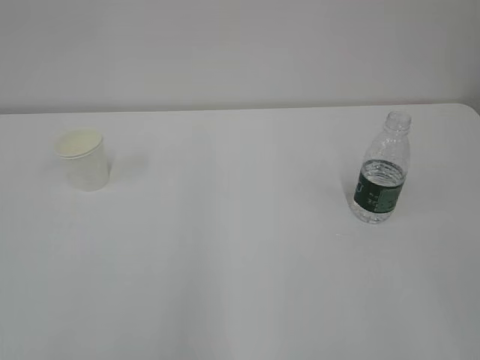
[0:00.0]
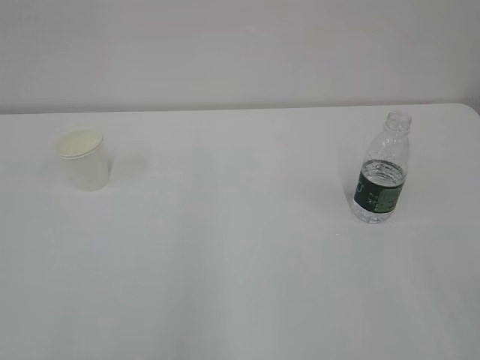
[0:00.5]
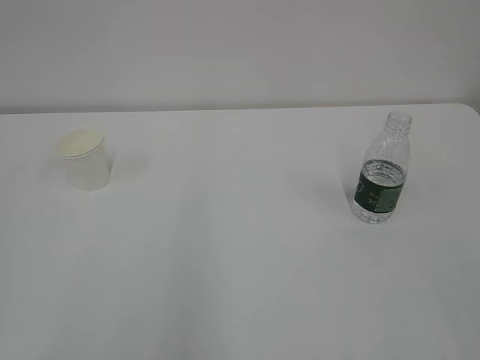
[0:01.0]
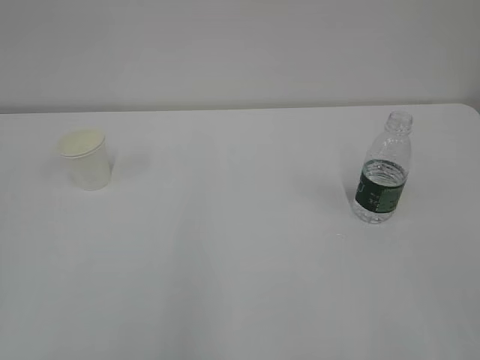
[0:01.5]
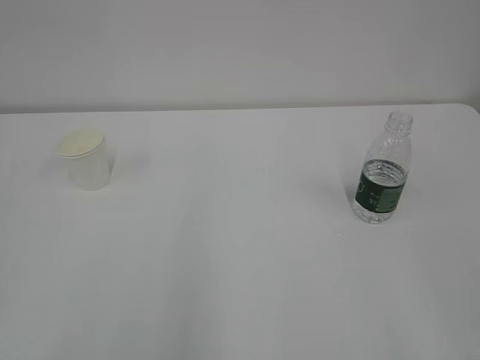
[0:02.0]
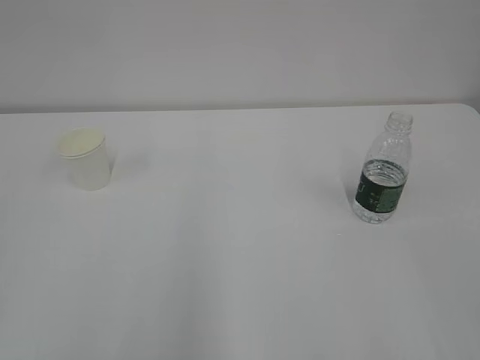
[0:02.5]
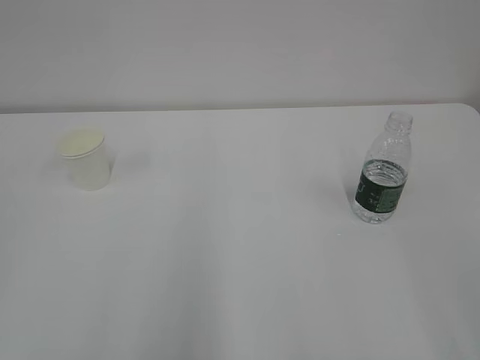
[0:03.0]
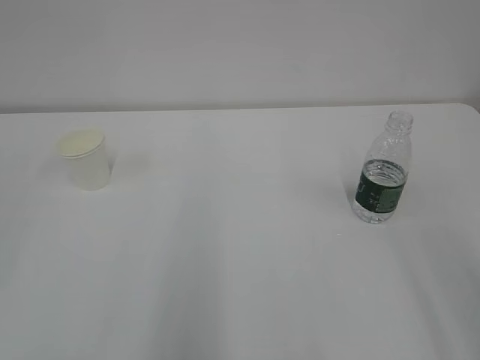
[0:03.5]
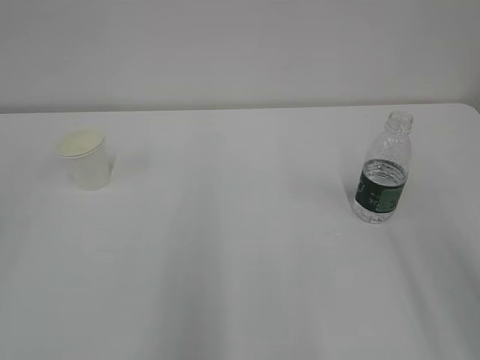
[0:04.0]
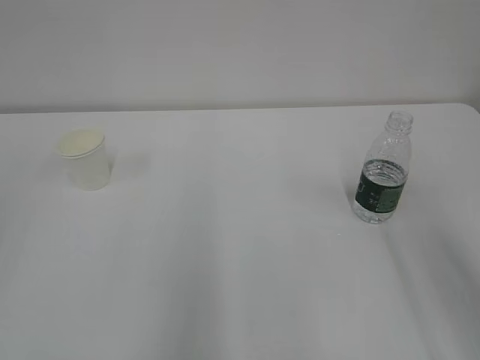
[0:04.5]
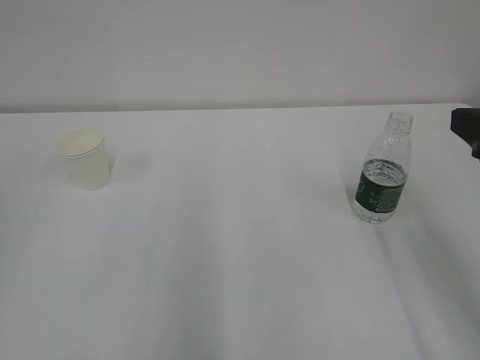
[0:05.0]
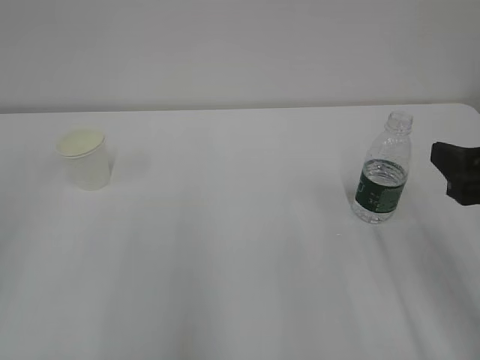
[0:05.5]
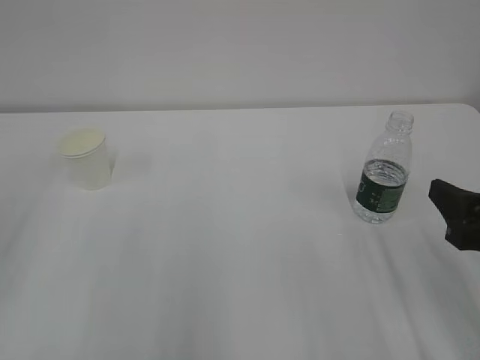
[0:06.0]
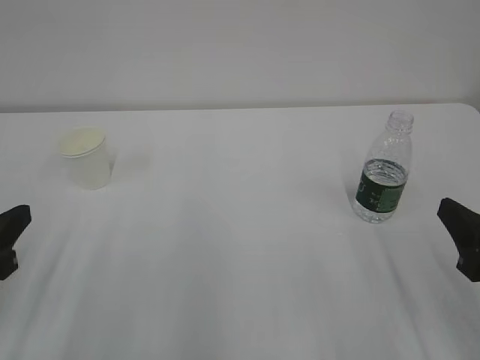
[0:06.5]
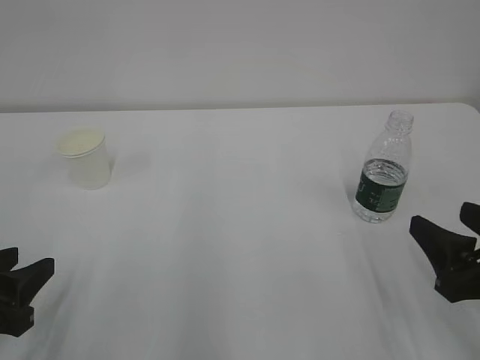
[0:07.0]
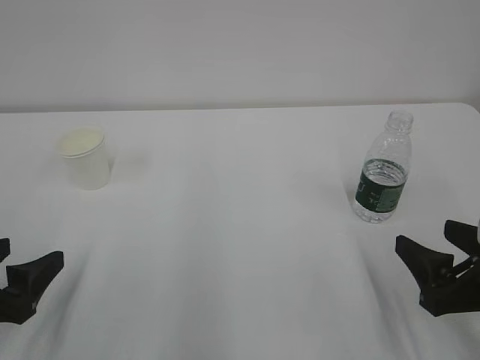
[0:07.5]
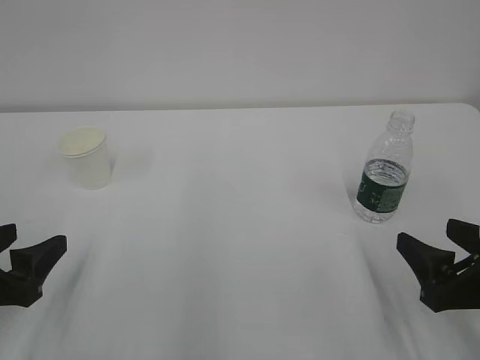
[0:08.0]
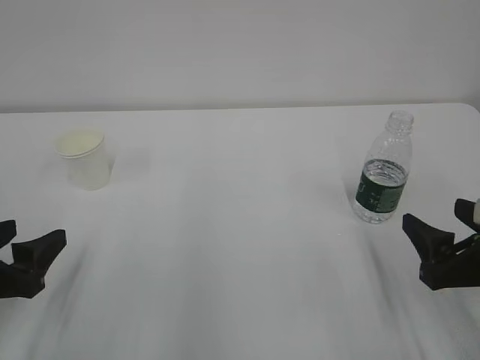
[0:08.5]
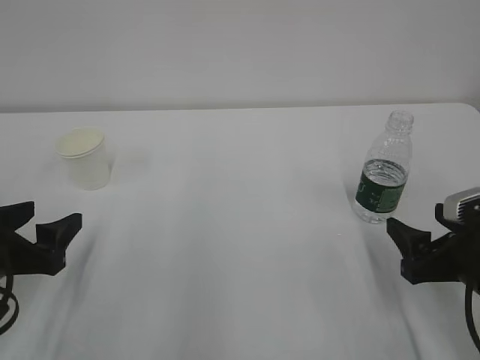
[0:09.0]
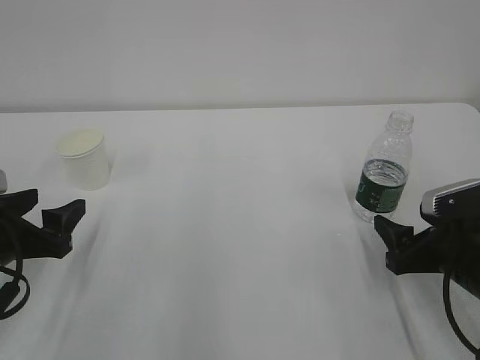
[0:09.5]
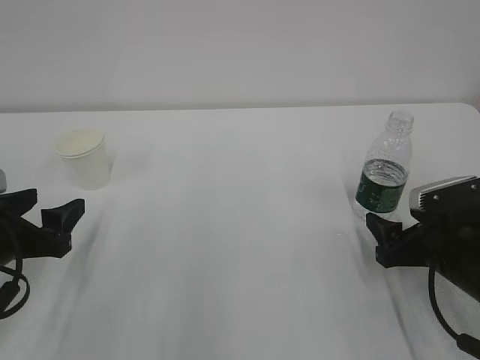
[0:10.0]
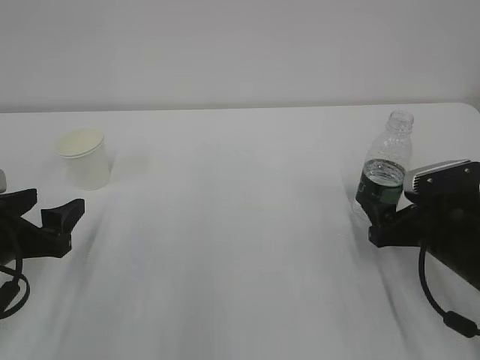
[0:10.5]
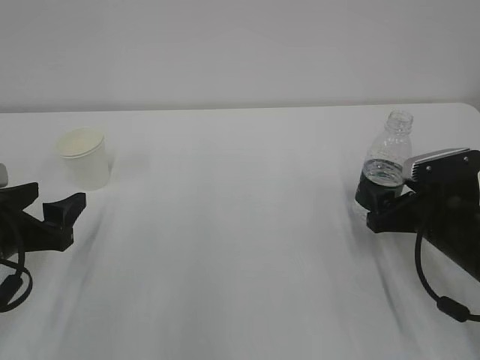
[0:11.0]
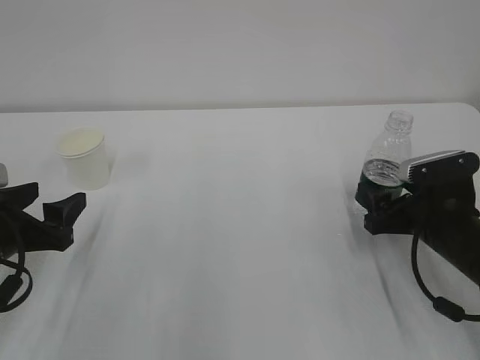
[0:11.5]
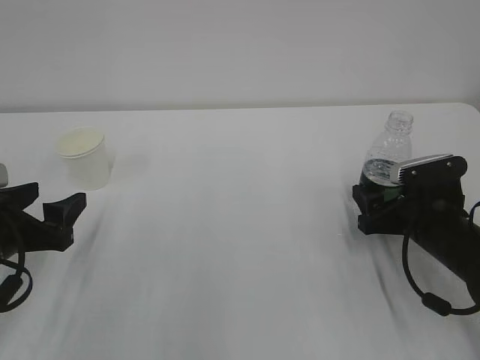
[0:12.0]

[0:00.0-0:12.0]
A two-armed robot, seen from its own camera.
0:04.0 to 0:06.0: The right gripper goes roughly 15 cm downward and forward.
0:06.0 to 0:08.0: The right gripper travels downward by approximately 5 cm. The left gripper shifts approximately 10 cm downward, and opens.
0:08.0 to 0:10.0: The grippers both shift forward by some 5 cm.
0:10.0 to 0:12.0: The grippers make only small movements.

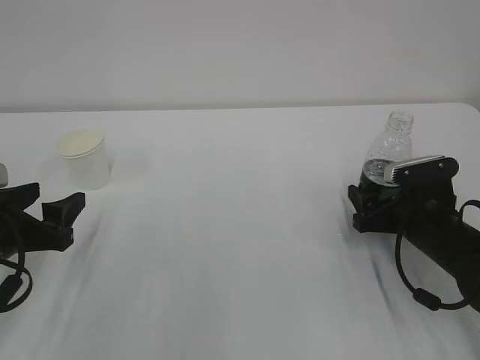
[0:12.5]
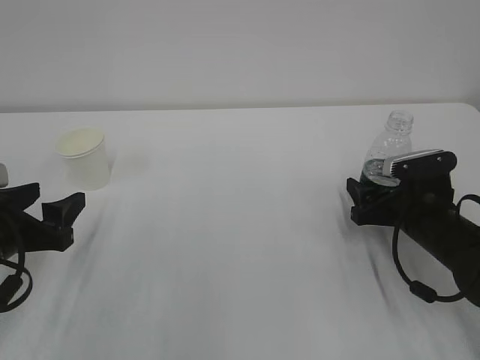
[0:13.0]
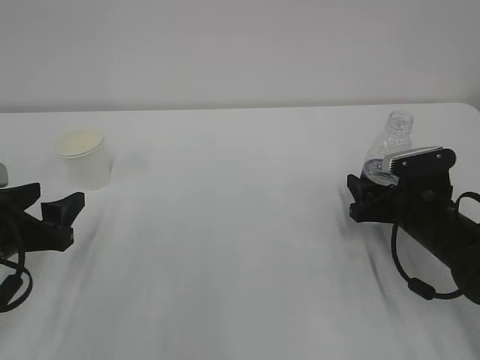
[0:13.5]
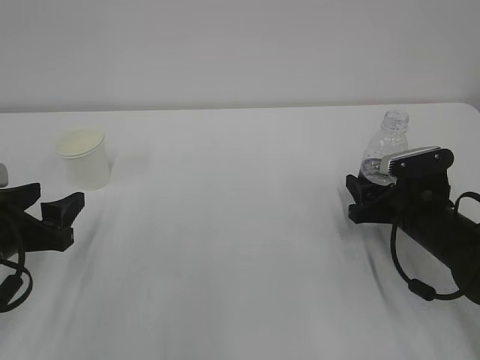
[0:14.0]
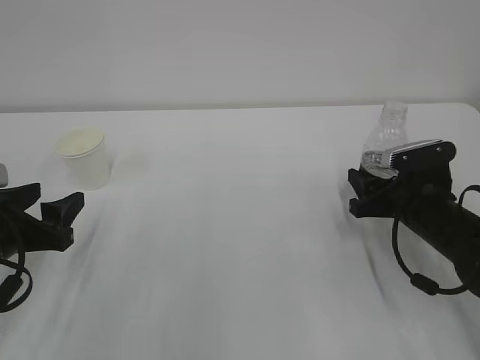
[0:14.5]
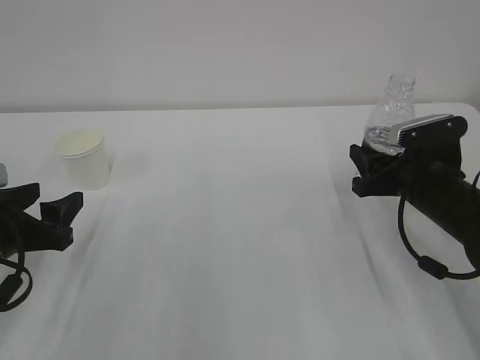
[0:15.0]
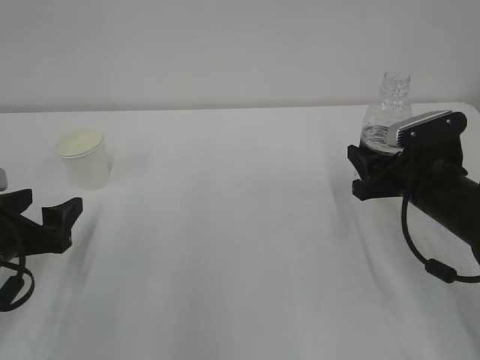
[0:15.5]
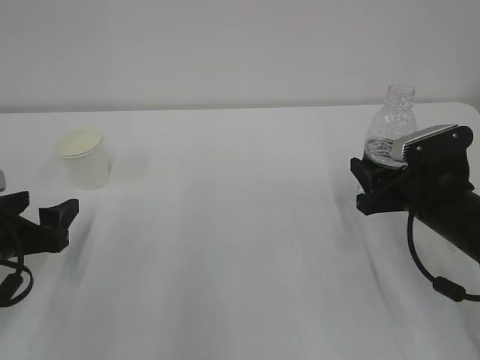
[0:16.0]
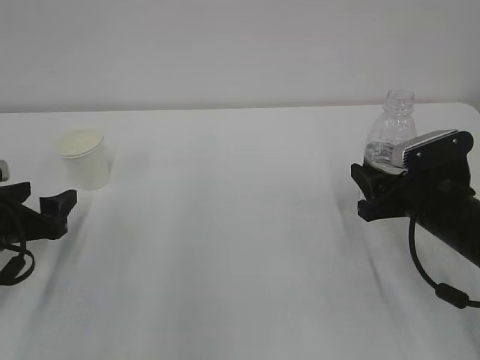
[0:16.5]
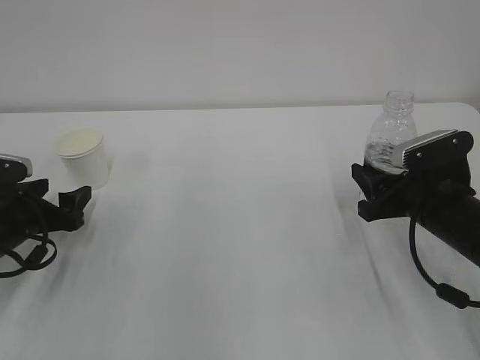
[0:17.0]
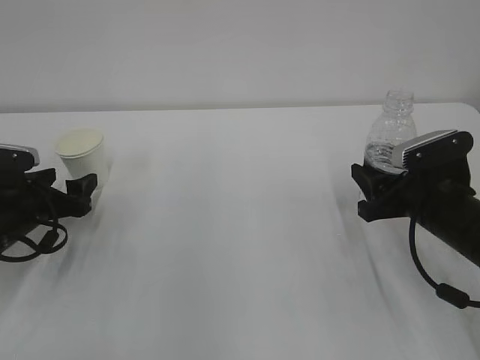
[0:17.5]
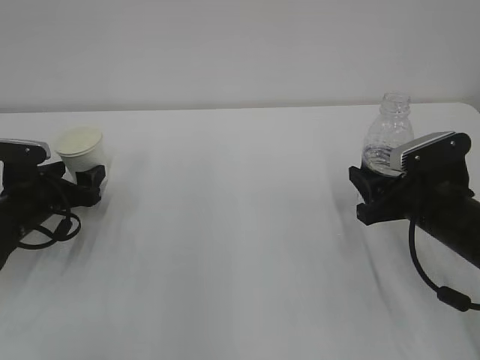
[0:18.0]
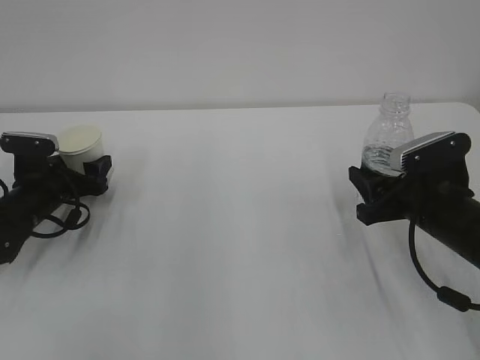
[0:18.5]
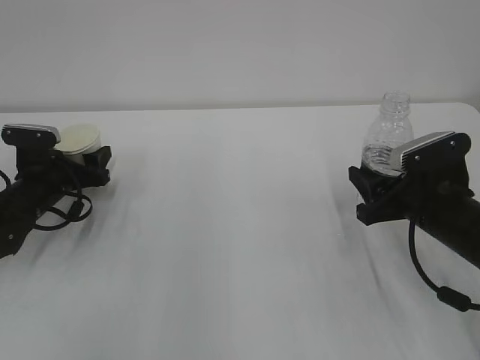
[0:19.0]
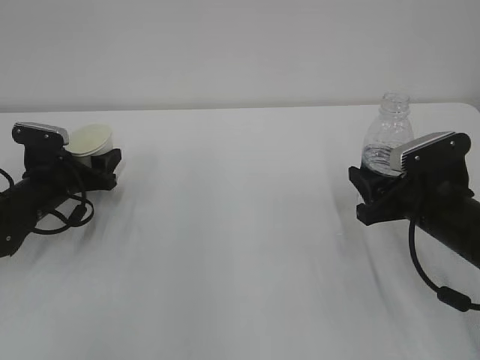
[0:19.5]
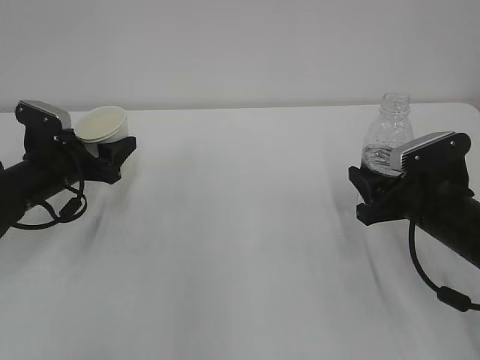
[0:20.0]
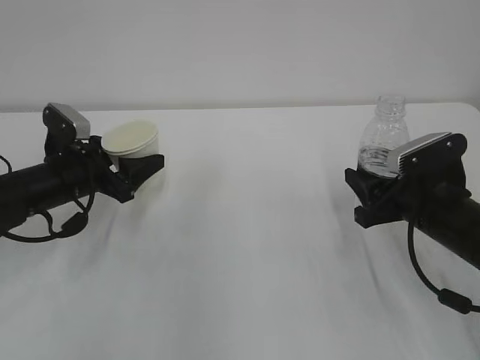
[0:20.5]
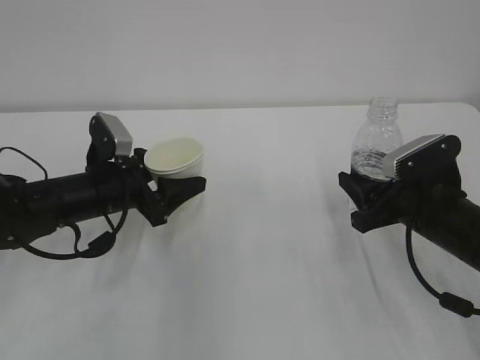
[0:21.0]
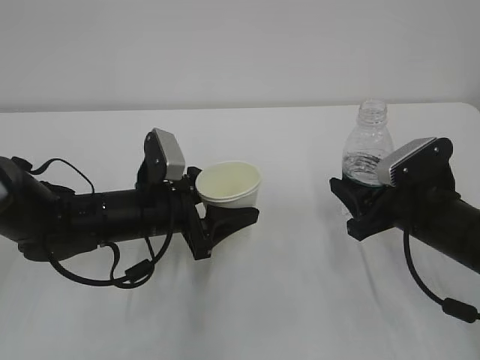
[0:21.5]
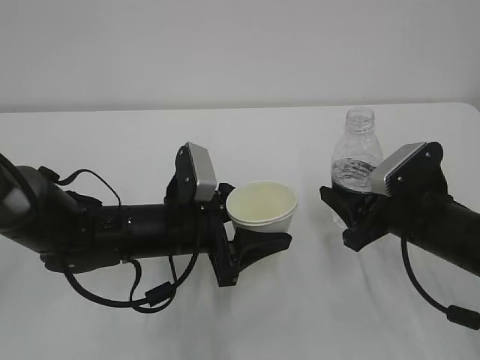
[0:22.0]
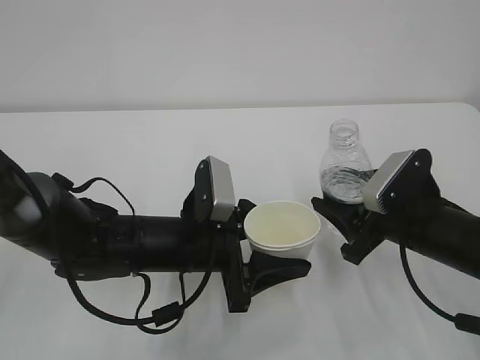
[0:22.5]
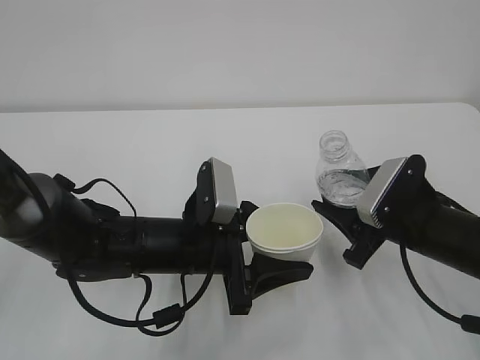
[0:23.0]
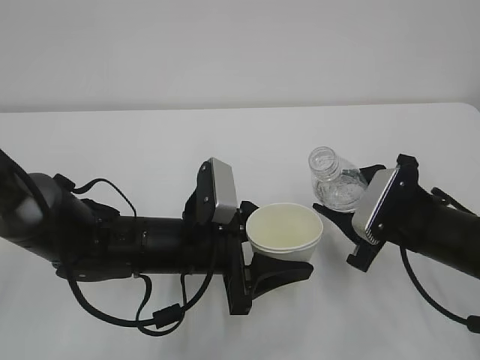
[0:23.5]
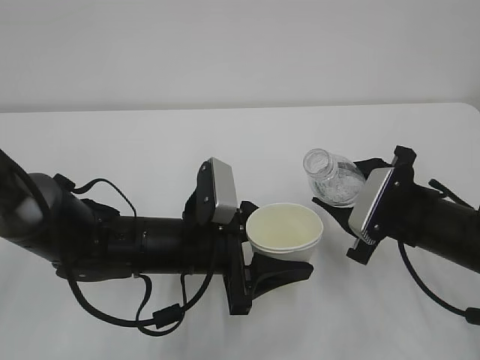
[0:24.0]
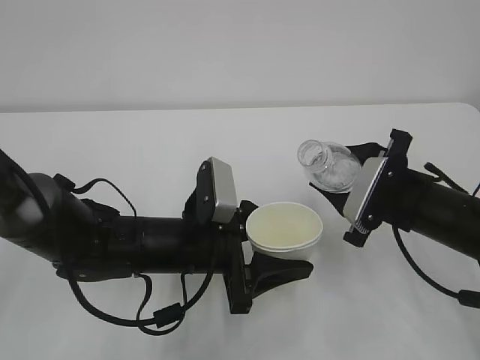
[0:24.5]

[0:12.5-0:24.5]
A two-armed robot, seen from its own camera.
0:12.5 to 0:14.5: The right gripper closes up.
0:14.5 to 0:16.5: The left gripper changes place by about 5 cm, and opens its fingers.
0:16.5 to 0:18.5: The left gripper travels forward by about 10 cm.
0:18.5 to 0:20.5: The left gripper moves to the right, roughly 5 cm, and closes its fingers.
0:20.5 to 0:22.5: The left gripper shifts approximately 20 cm to the right and backward.

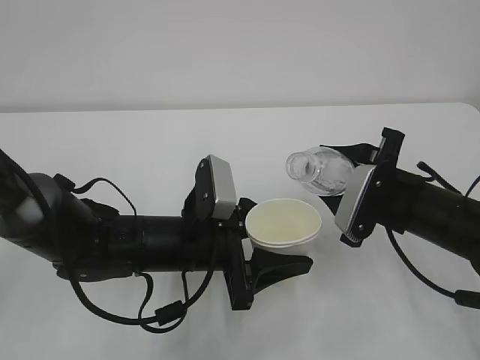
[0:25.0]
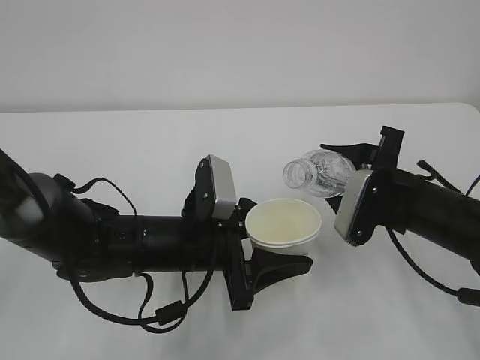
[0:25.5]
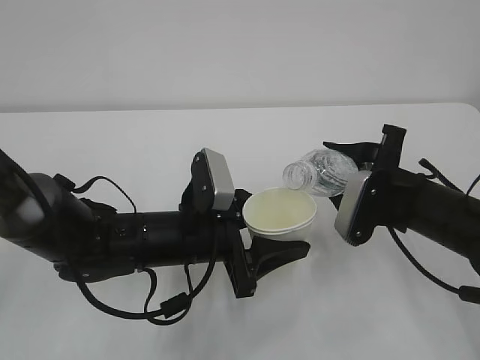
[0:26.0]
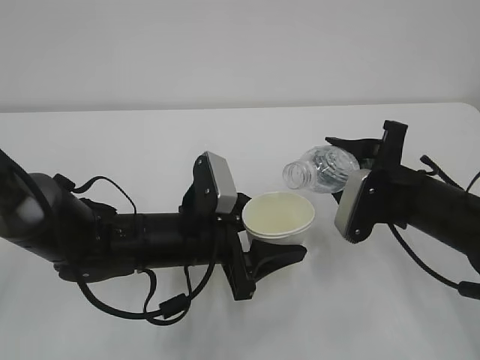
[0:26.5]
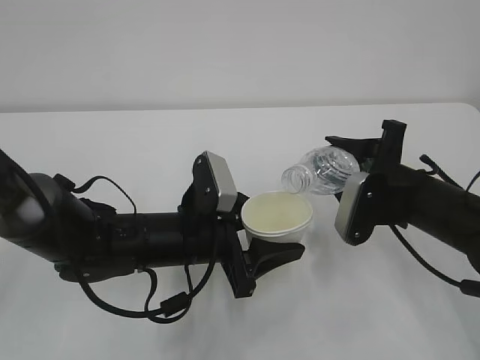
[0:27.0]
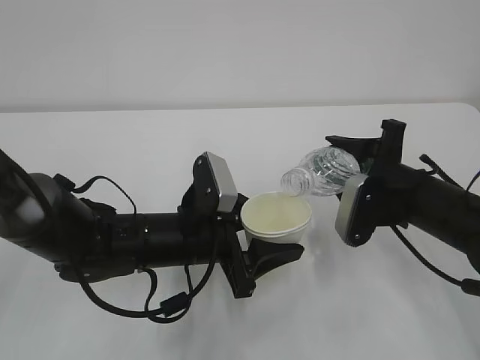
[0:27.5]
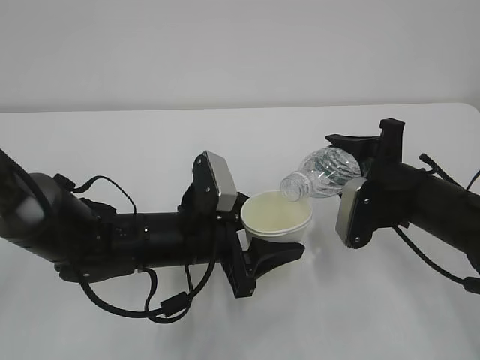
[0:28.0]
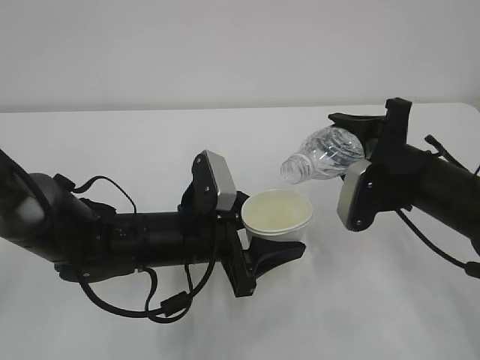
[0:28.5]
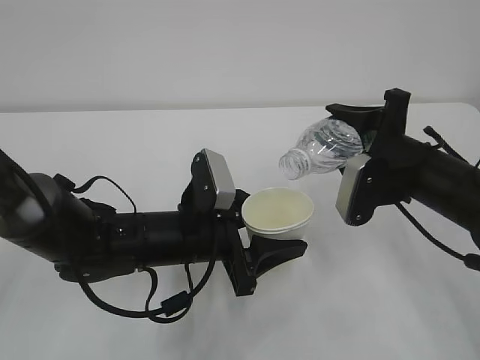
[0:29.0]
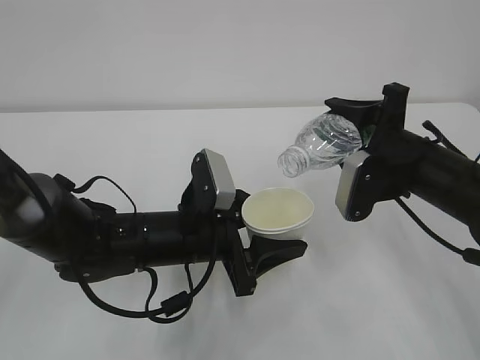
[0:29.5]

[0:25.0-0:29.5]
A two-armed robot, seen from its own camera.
0:25.0 to 0:27.0: There are only small adjustments of the grippers.
0:27.0 to 0:29.5: The grippers make only small movements.
